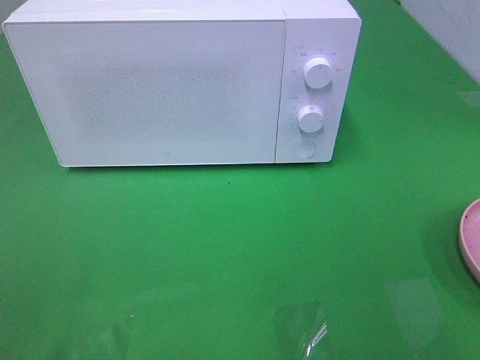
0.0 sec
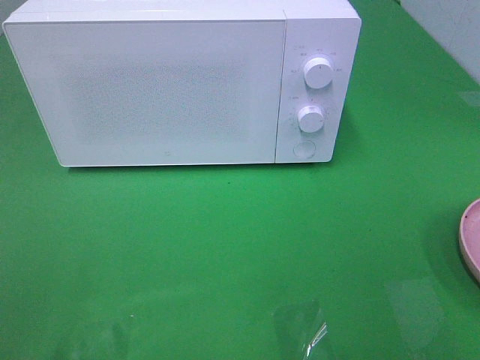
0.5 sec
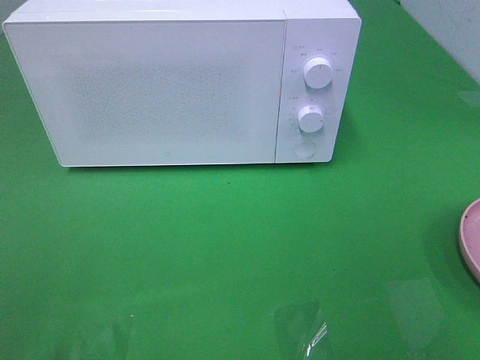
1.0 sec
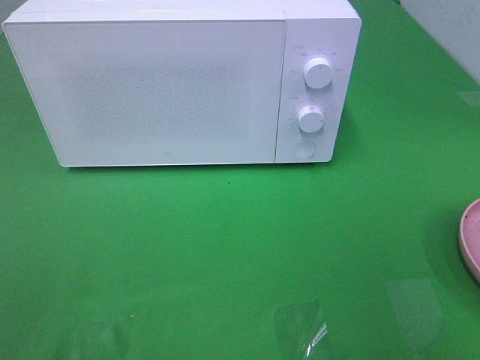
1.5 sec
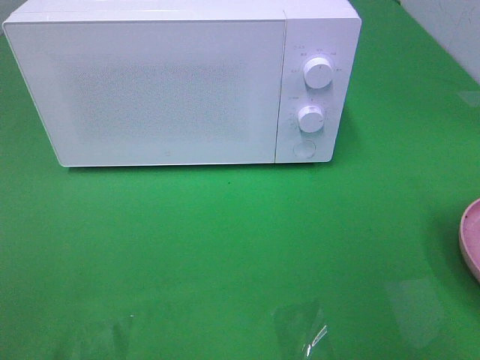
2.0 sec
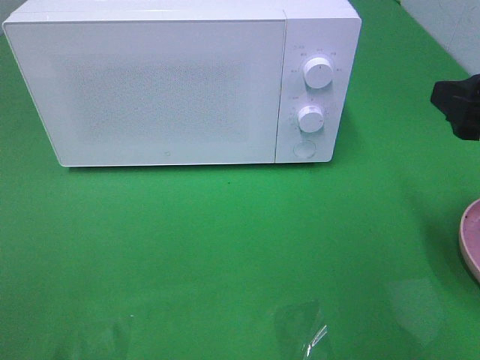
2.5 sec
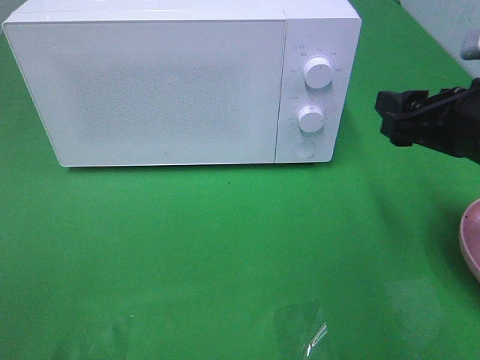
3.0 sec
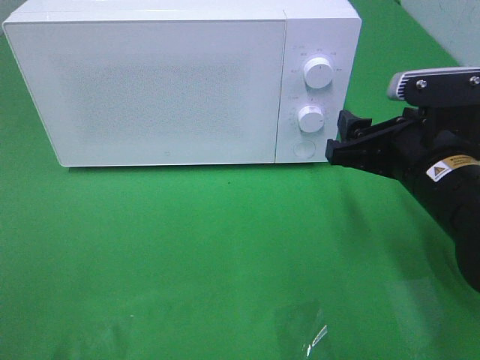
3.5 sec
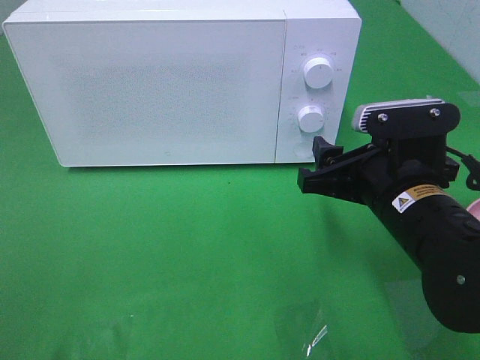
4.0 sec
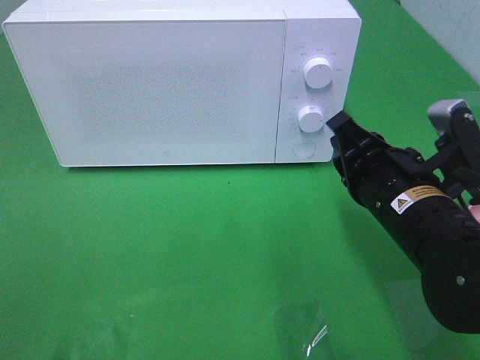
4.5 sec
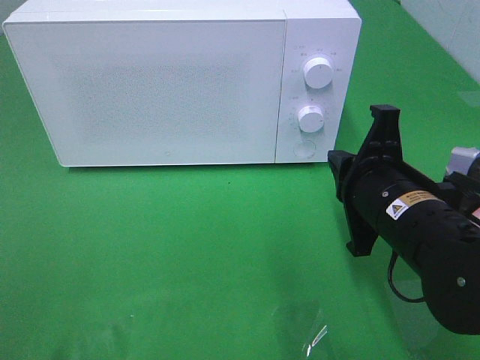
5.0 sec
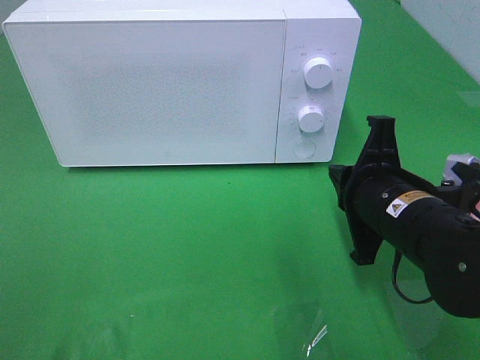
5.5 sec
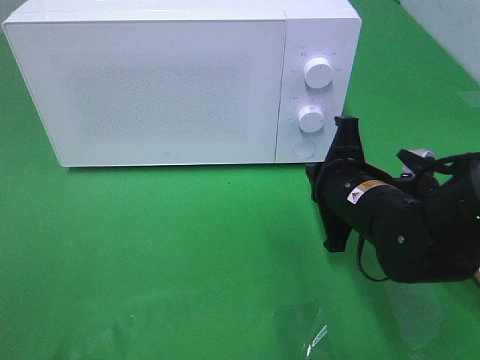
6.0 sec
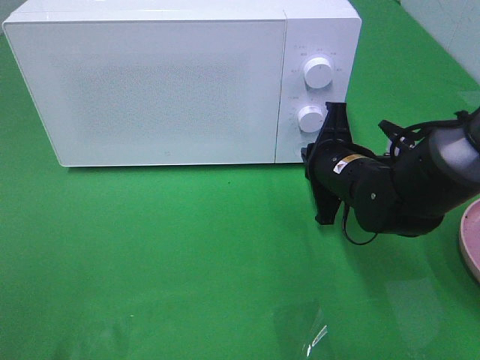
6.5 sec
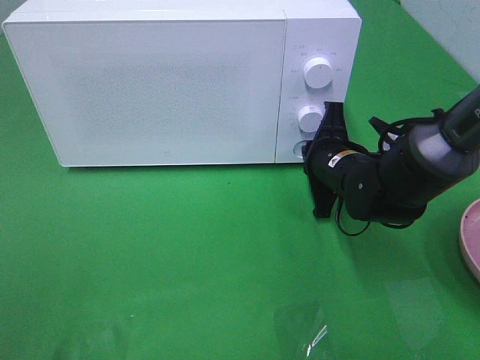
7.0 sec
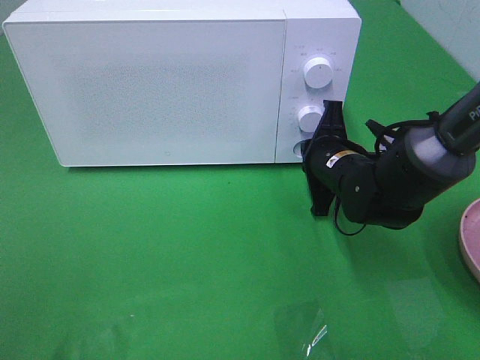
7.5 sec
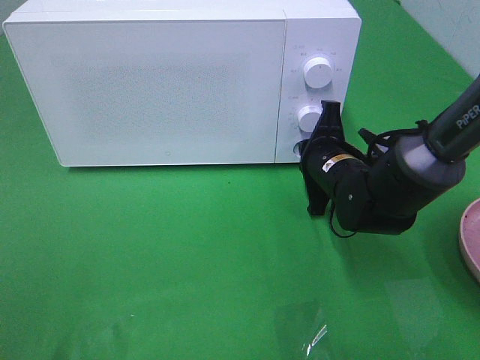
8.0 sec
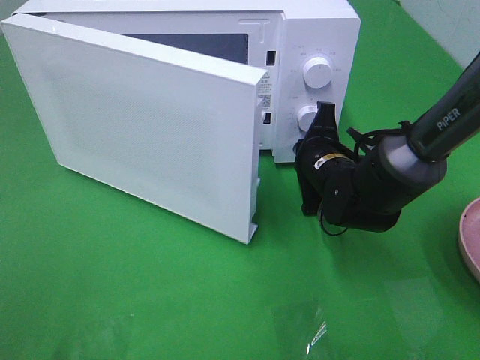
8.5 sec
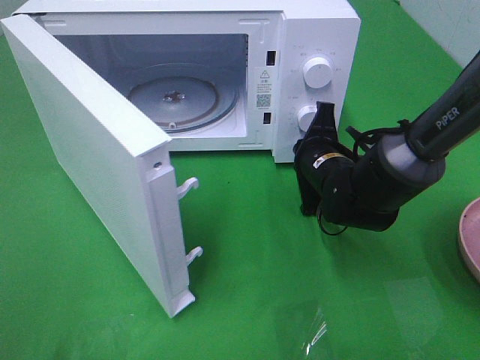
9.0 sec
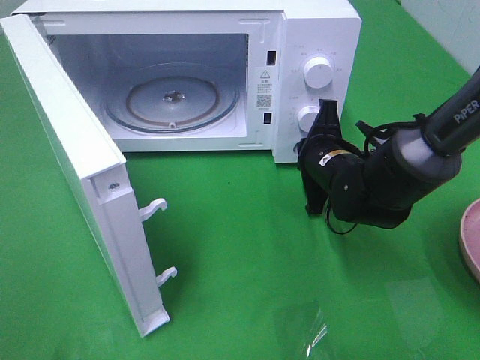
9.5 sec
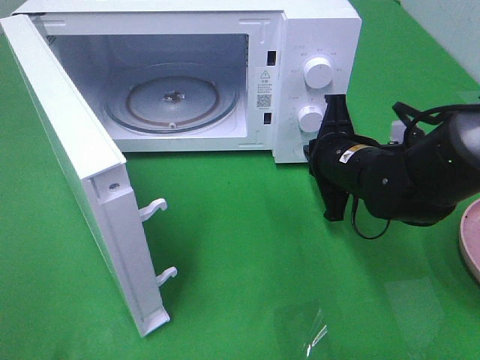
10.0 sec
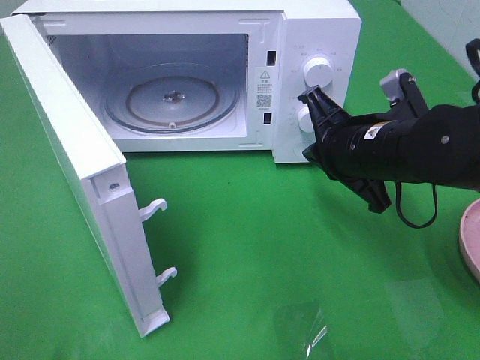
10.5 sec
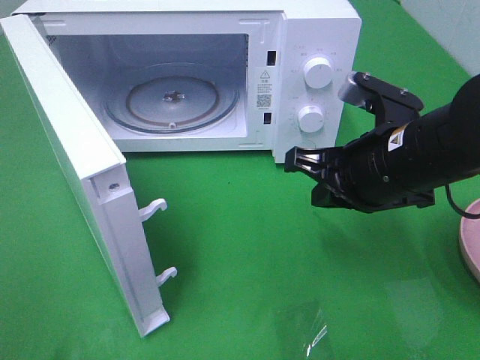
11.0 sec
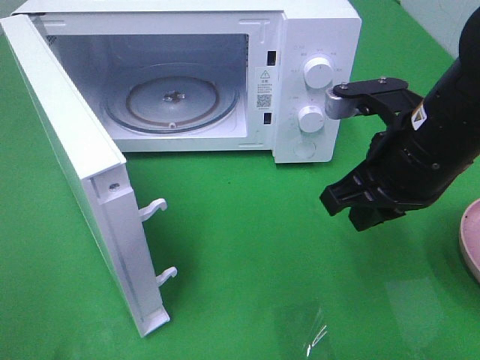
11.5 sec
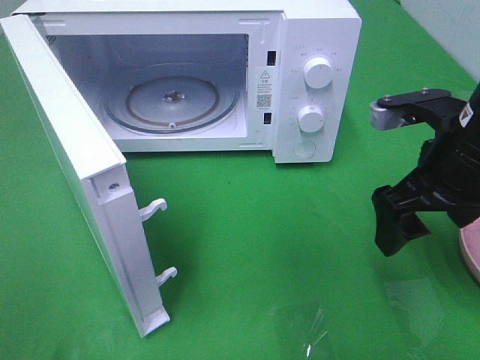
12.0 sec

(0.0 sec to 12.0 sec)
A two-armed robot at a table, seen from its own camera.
Task of the whole recording: Heat the burger.
Step, 0.0 sec - 10.0 sec: Right hand: press the switch.
2.0 sec - 4.0 sec: The right gripper heads downward, to the left and forward, covering roughly 20 cm.
4.0 sec - 6.0 sec: The right gripper shifts by some 5 cm, and closes its fingers.
6.0 sec - 8.0 sec: The right gripper travels forward by roughly 10 cm.
10.0 sec - 12.0 sec: The right gripper goes about 15 cm upward, to the right and backward, and opens.

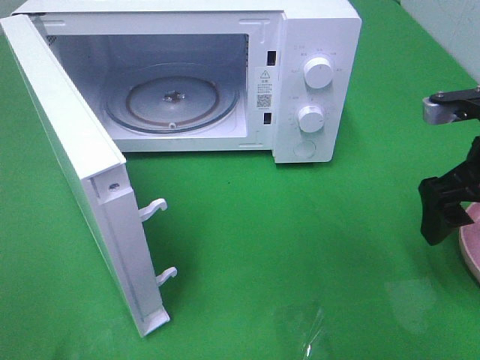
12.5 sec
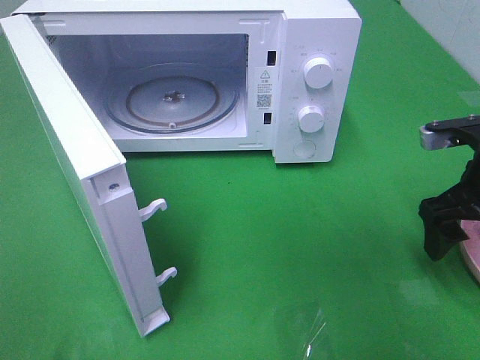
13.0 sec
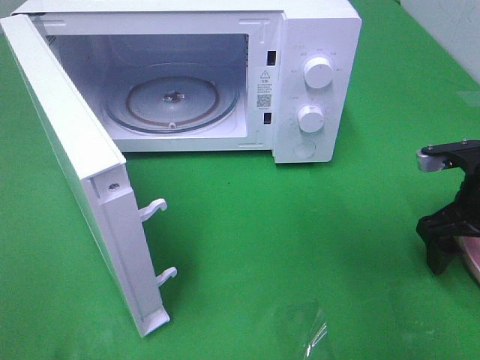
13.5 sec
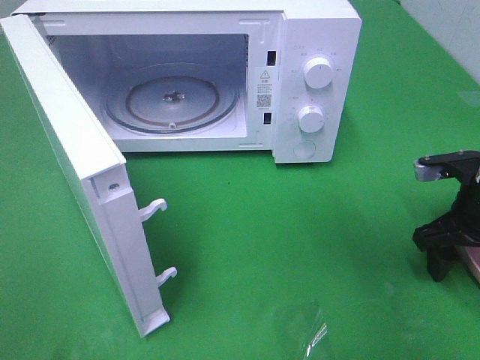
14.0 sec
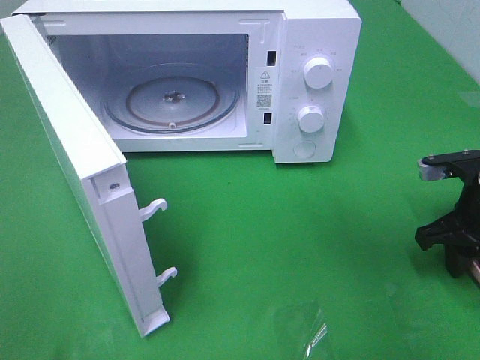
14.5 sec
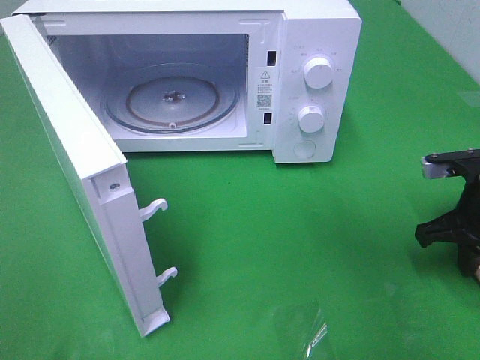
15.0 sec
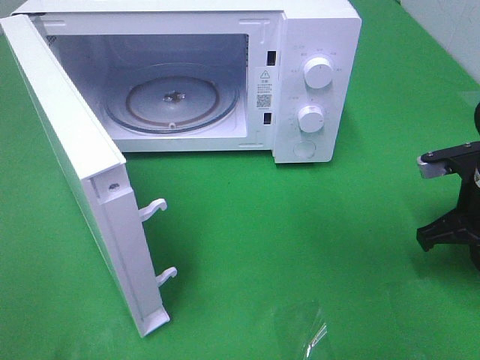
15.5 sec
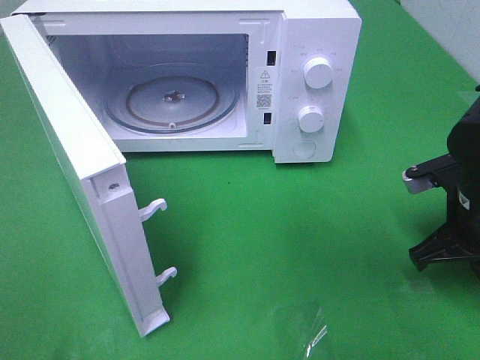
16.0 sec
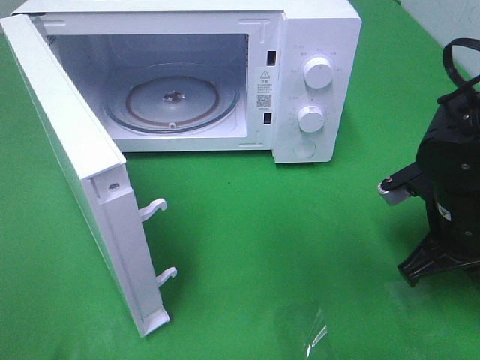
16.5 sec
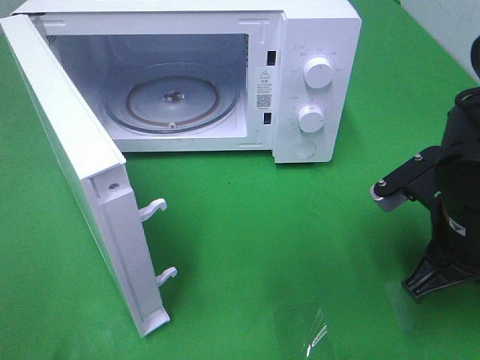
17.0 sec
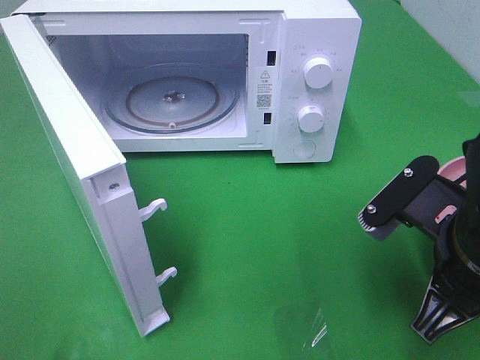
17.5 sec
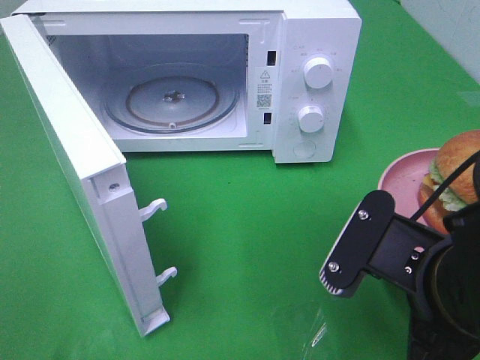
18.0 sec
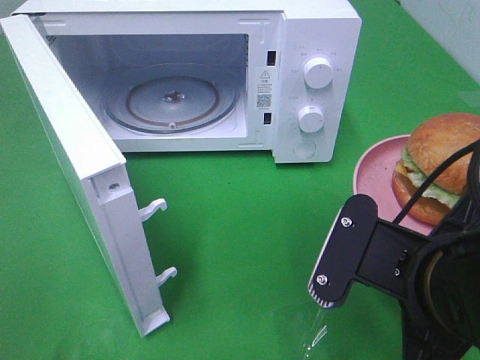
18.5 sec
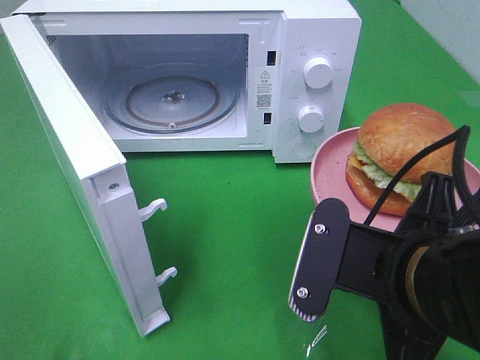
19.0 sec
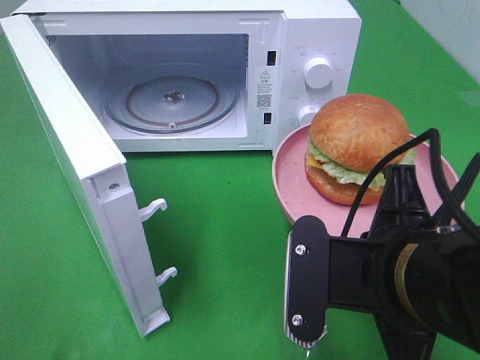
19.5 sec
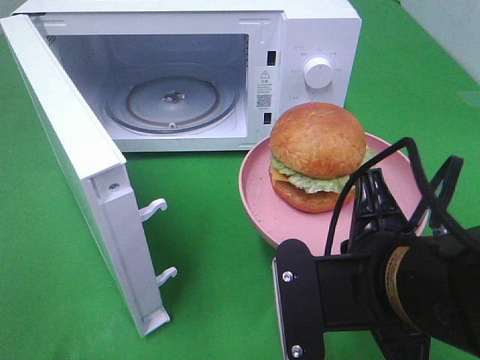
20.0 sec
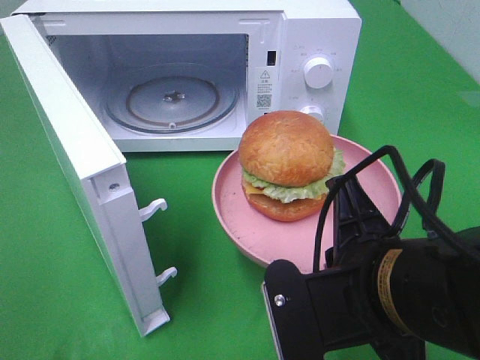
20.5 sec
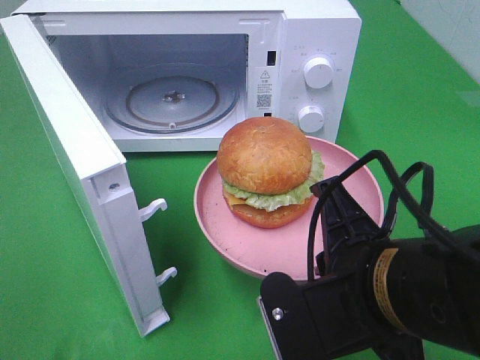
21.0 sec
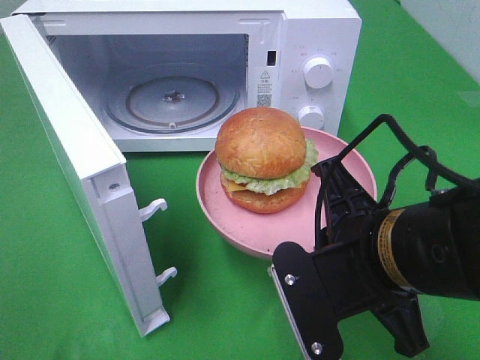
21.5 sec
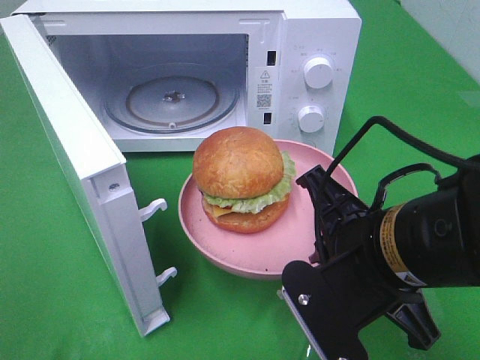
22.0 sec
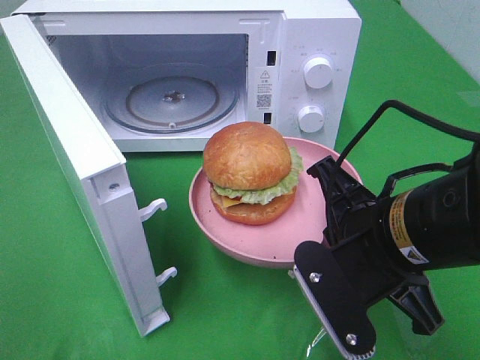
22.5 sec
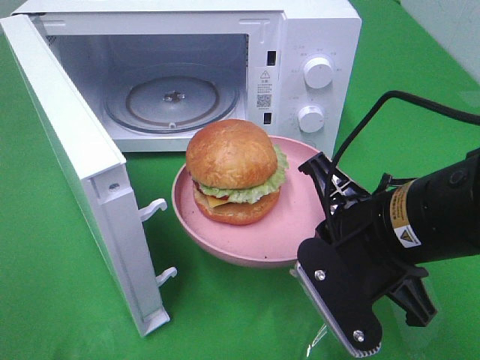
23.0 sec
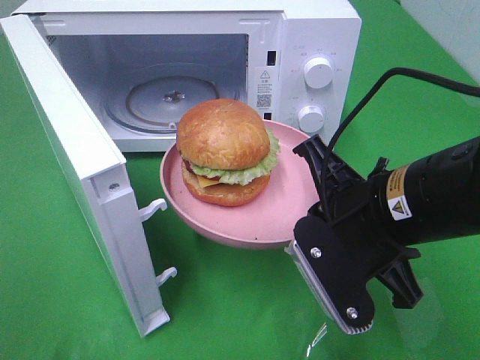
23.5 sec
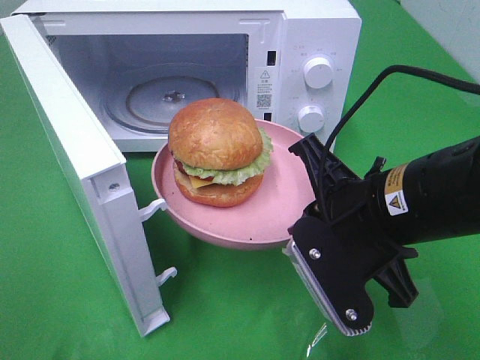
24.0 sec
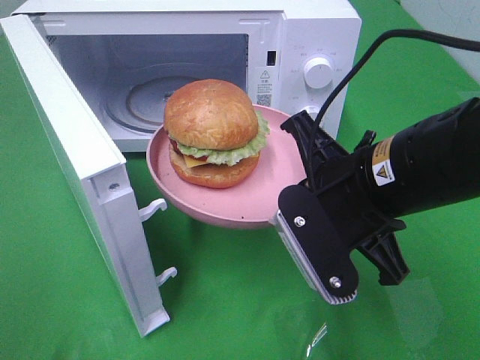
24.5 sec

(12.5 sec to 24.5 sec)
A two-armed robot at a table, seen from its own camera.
Task of the whole recording: Heat the burger.
Step, 12.5 sec - 16.0 sec: Right hand: grab the plate with the hamburger.
12.5 sec - 14.5 sec: The right gripper travels downward by approximately 10 cm, and closes.
14.5 sec - 16.5 sec: The right gripper moves to the left, some 5 cm, and closes up.
16.5 sec - 18.5 sec: The right gripper travels backward, to the left and upward by some 15 cm.
20.5 sec - 22.5 sec: The right gripper travels forward by roughly 5 cm.

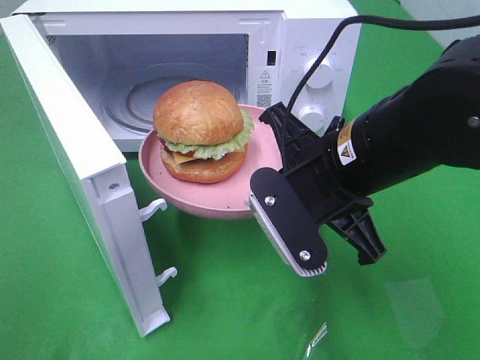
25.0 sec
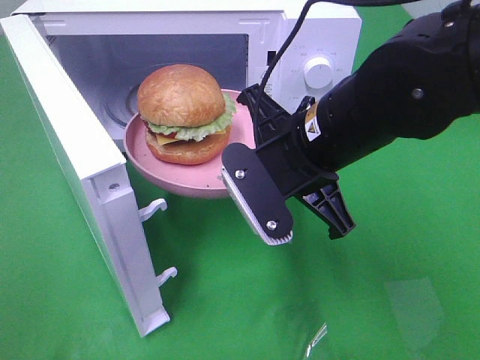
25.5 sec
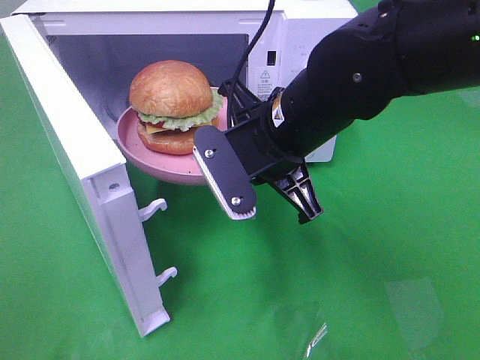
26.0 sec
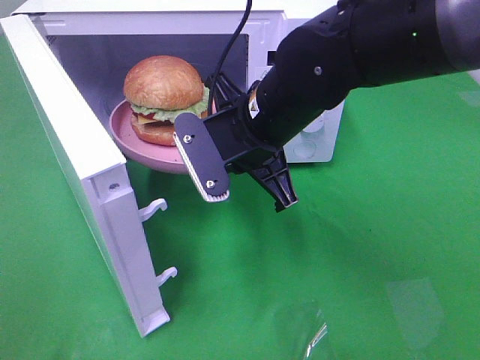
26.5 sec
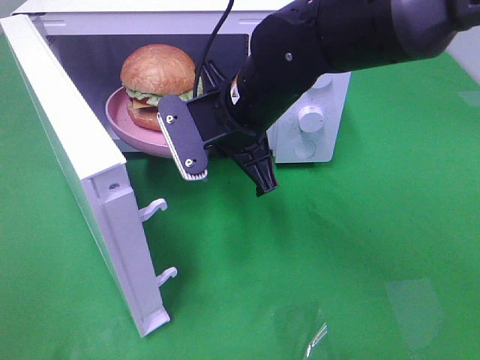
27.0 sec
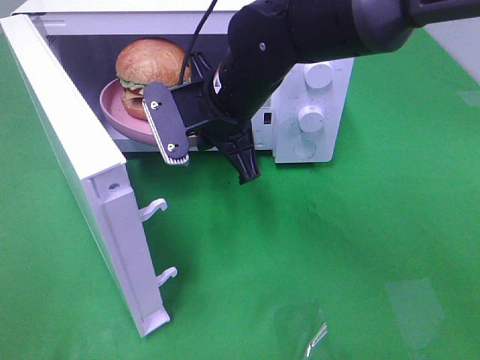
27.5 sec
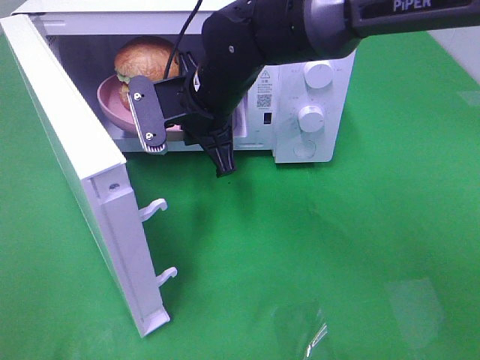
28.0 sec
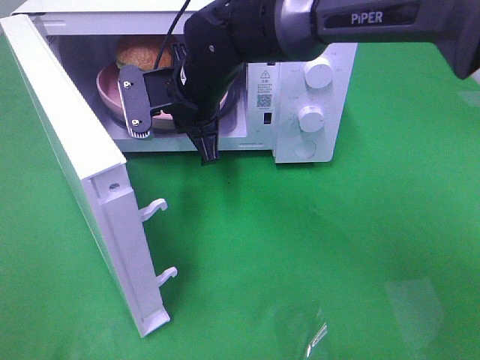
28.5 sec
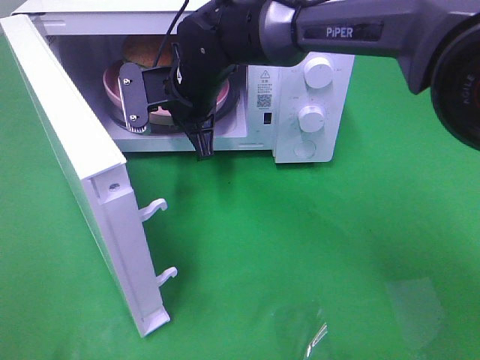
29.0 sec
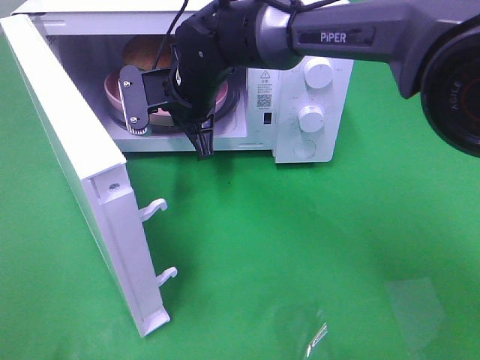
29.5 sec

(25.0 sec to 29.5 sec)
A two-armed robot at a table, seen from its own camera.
Task of the whole recording: Heat the burger.
25.0 sec - 27.0 sec: The right gripper moves forward and to the left, roughly 10 cm.
27.0 sec - 29.5 sec: The right gripper travels forward and to the left by roughly 10 cm.
